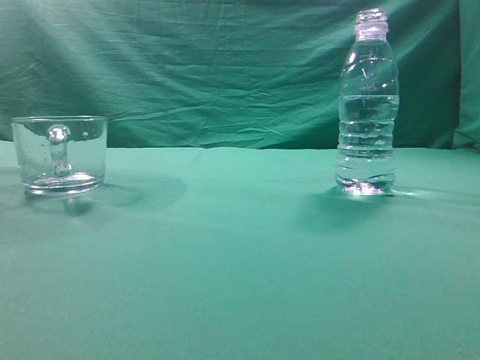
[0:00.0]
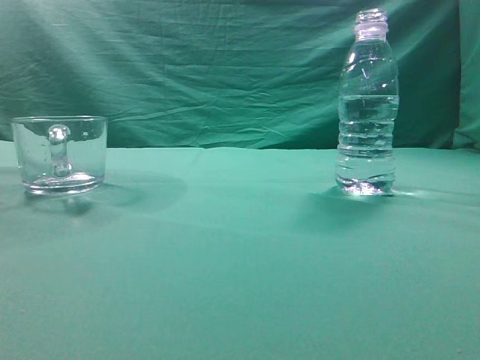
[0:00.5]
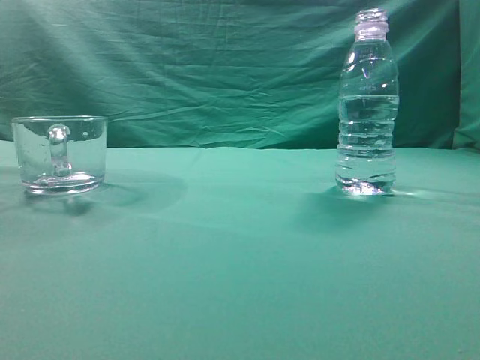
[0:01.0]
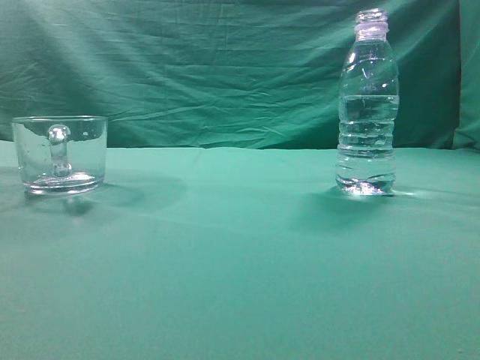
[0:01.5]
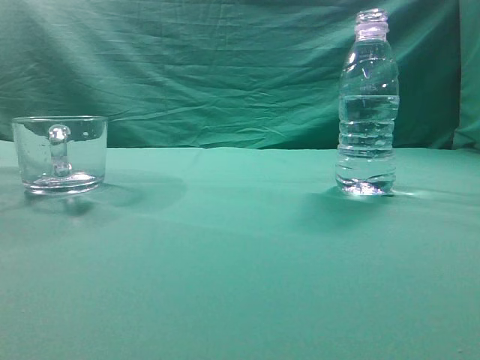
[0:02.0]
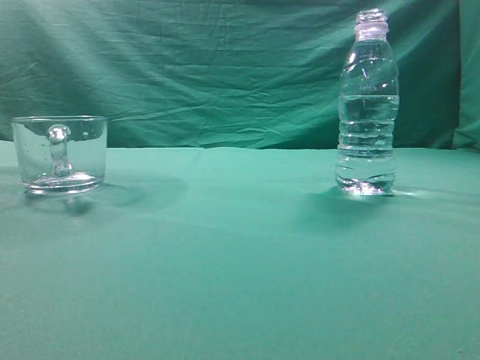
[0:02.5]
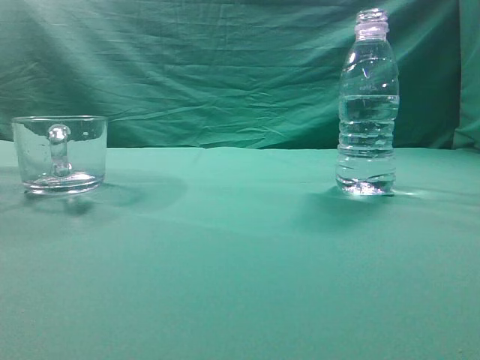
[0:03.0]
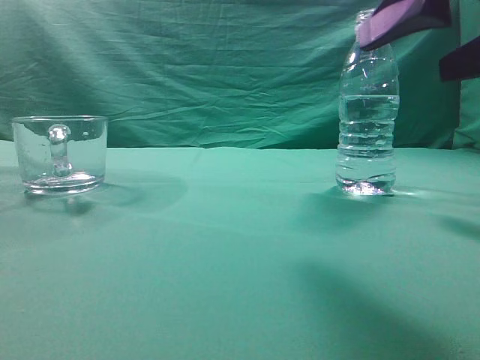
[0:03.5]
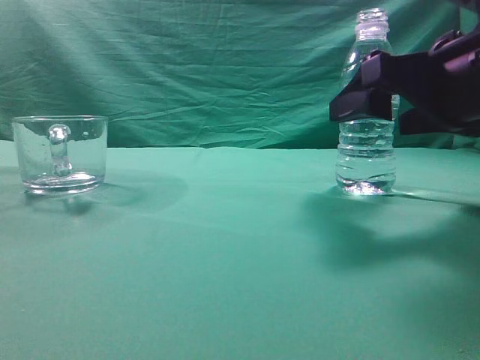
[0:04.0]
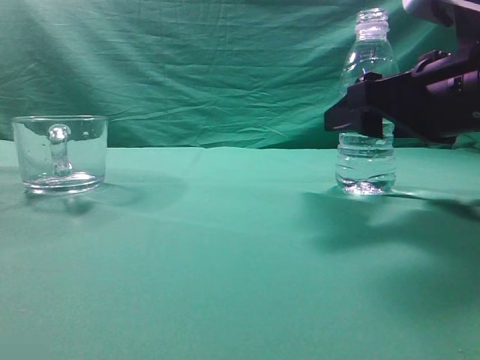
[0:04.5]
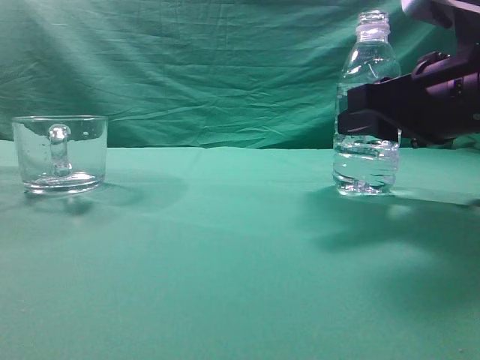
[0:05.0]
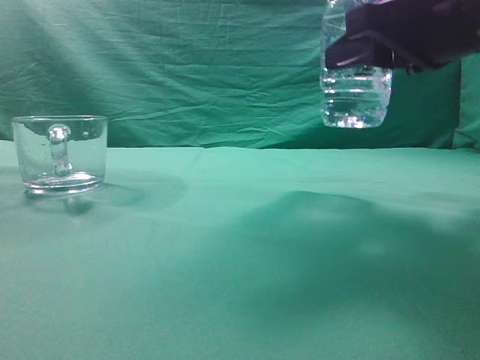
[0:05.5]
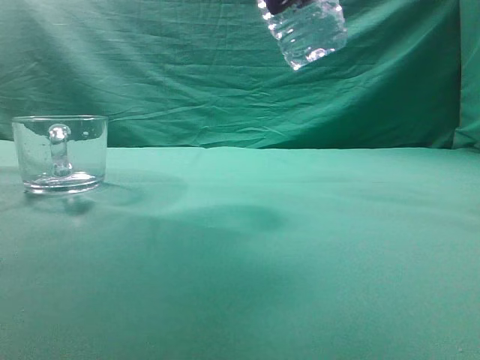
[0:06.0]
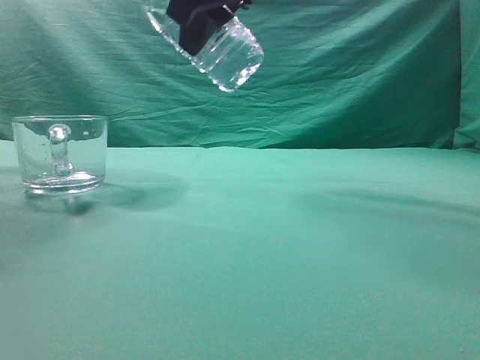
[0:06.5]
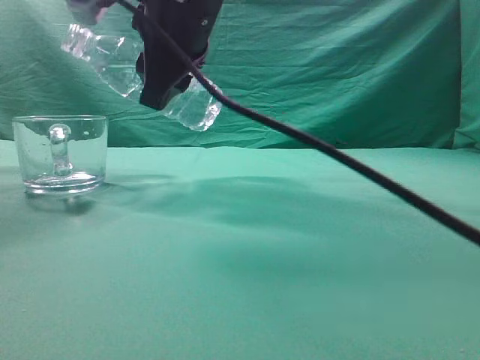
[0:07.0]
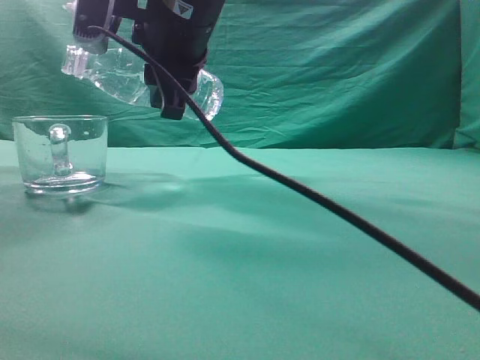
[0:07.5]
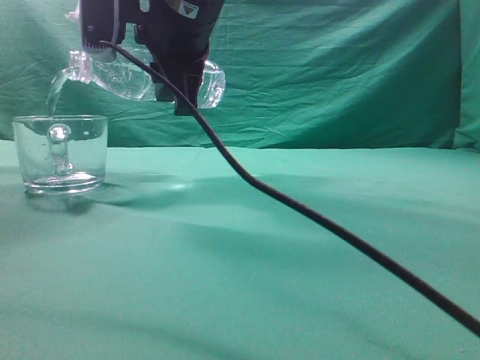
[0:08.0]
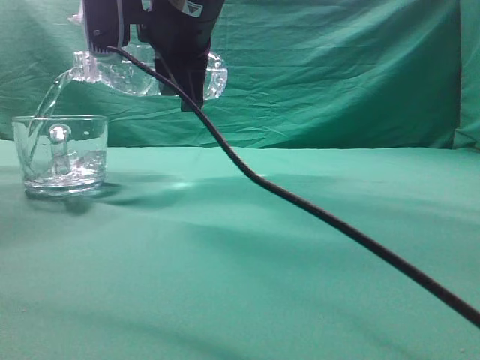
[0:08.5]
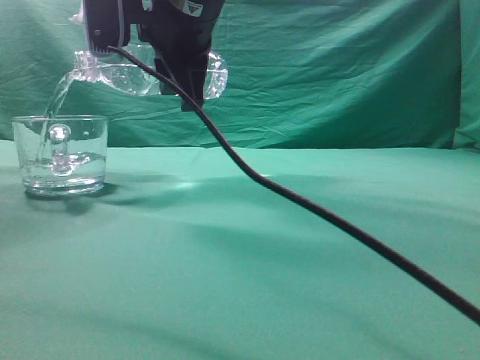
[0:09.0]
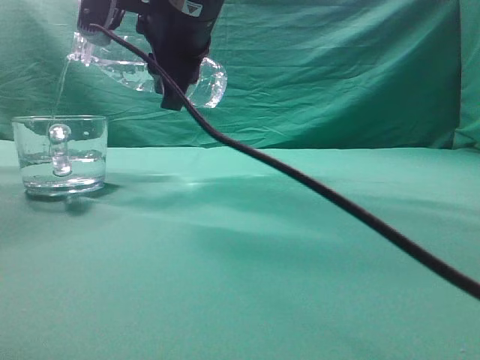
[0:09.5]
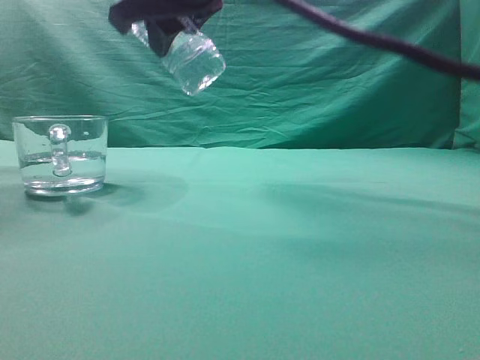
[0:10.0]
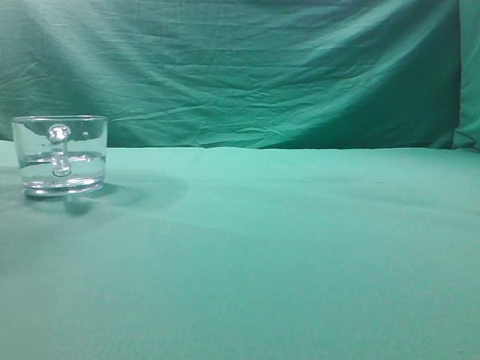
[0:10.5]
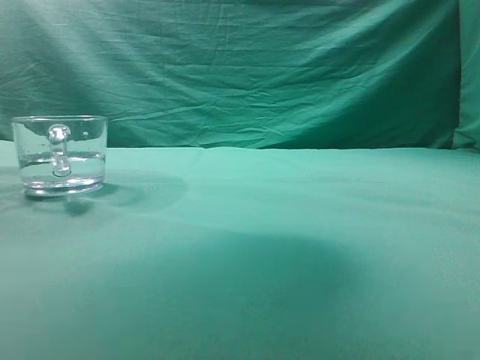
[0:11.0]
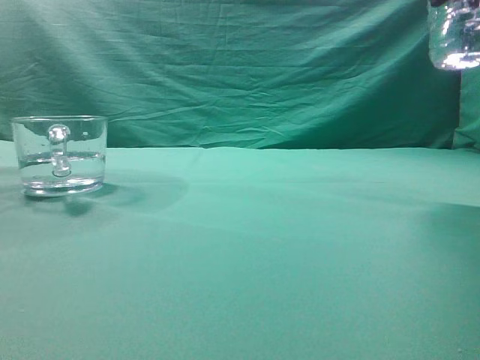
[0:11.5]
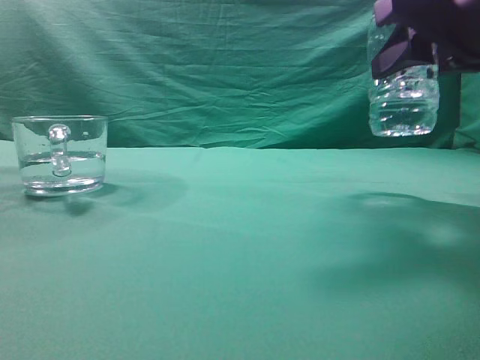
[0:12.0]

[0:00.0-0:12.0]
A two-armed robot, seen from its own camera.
Task of the whole recording: pick up the water bottle and pour the water in it into the glass.
Step, 0:00.0 to 0:05.0: Grasp the mineral water bottle.
Step, 0:05.5 to 0:09.5: Pour water into the teacup.
0:02.0 to 0:04.0: The right gripper travels forward, downward and to the left by some 30 cm, and opens.
0:04.0 to 0:06.0: The right gripper heads upward and to the left, covering roughly 15 cm, and closes its fingers.
0:06.0 to 0:08.0: The right gripper shifts approximately 20 cm to the left, forward and downward.
0:08.0 to 0:10.0: The right gripper travels upward by about 5 cm.
0:10.0 to 0:12.0: The right gripper is displaced to the right by about 25 cm.

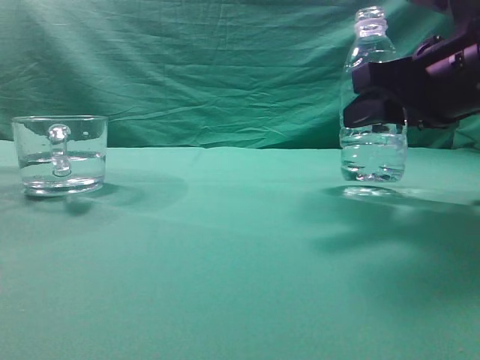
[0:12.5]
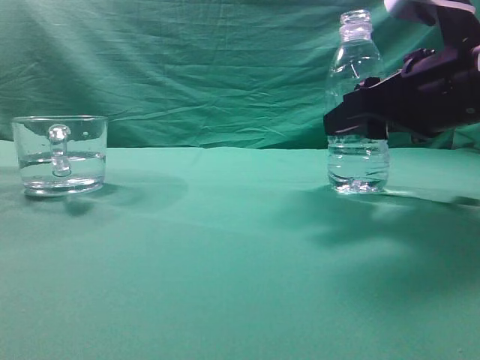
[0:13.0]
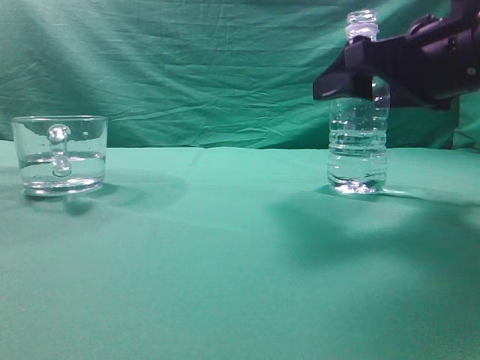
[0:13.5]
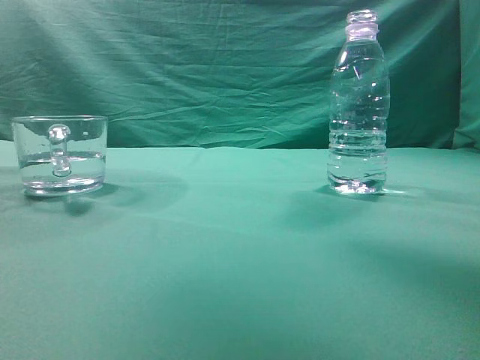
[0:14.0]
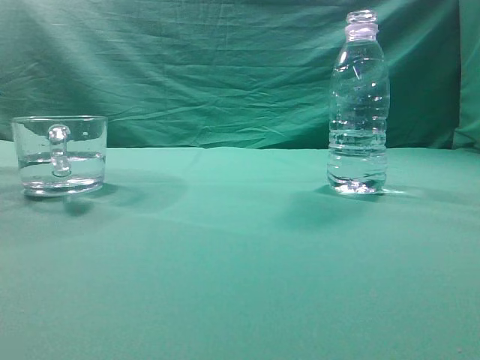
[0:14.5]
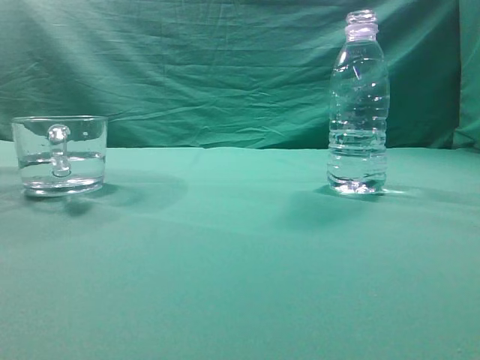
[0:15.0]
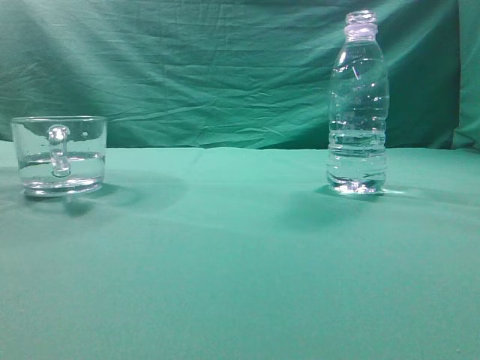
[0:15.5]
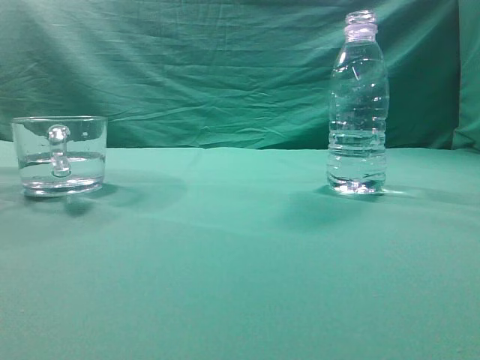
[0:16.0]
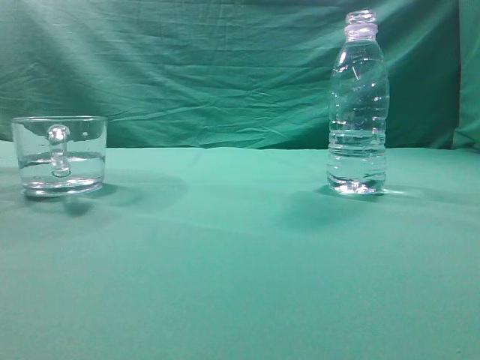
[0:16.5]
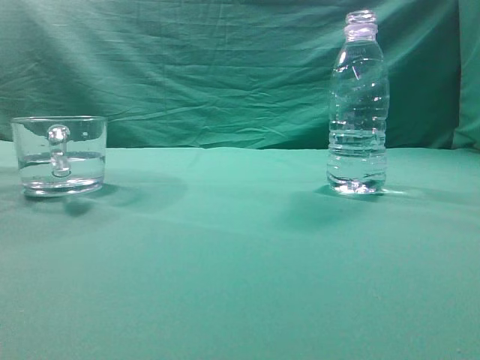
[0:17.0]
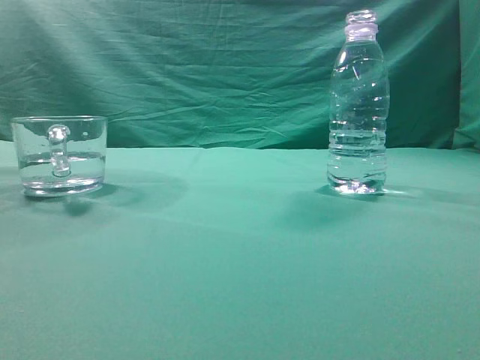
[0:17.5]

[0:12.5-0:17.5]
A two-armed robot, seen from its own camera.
Task of the whole recording: pick up the water bottle and pour the water in it into the glass.
0:12.5 to 0:15.0: The right gripper travels upward and backward by approximately 30 cm, and closes.
